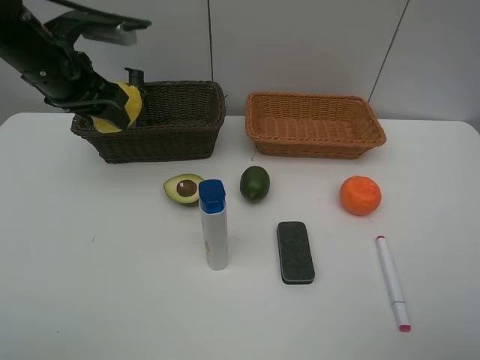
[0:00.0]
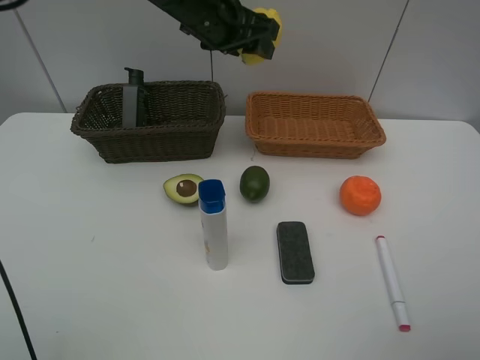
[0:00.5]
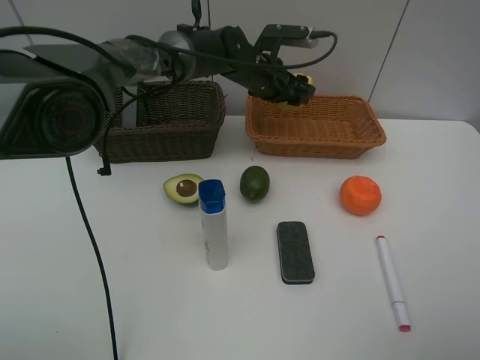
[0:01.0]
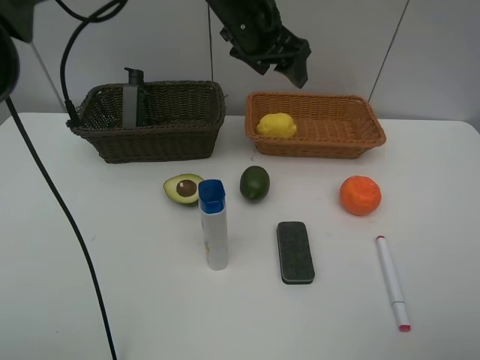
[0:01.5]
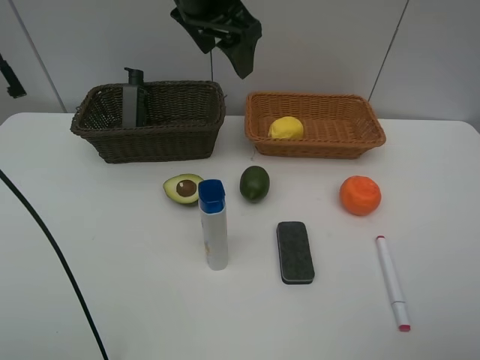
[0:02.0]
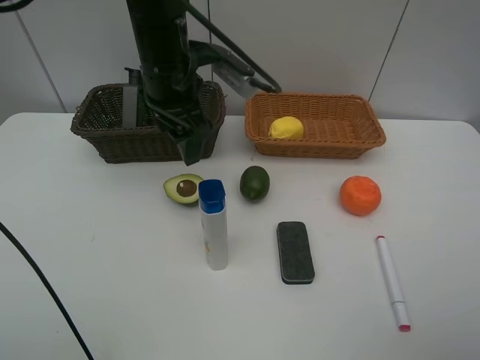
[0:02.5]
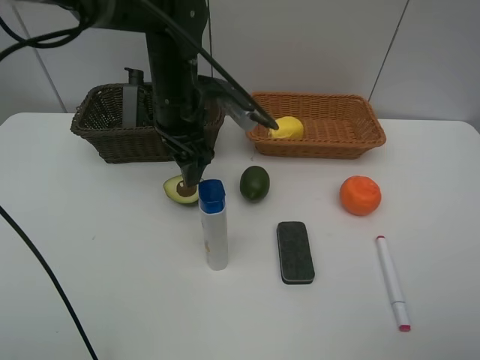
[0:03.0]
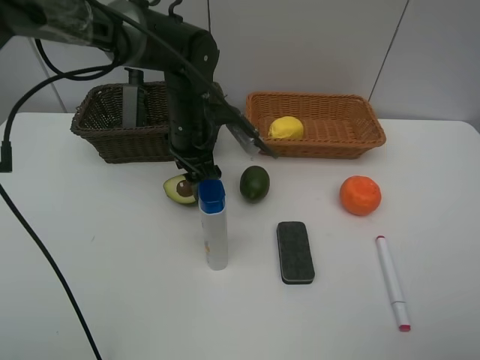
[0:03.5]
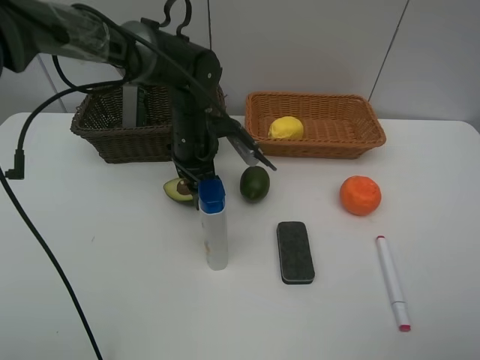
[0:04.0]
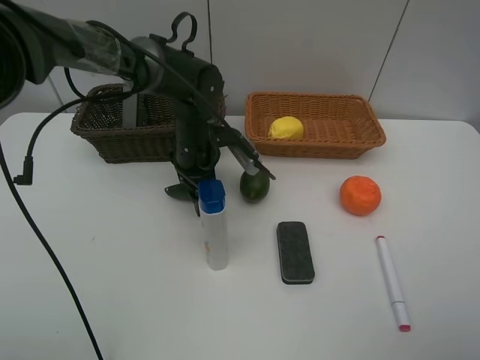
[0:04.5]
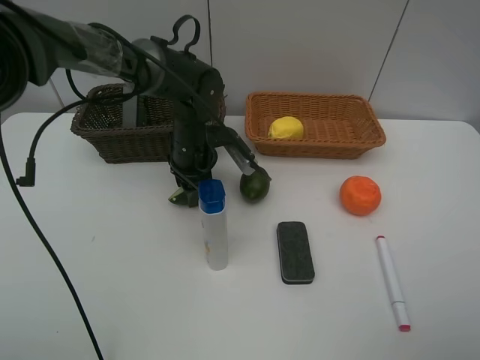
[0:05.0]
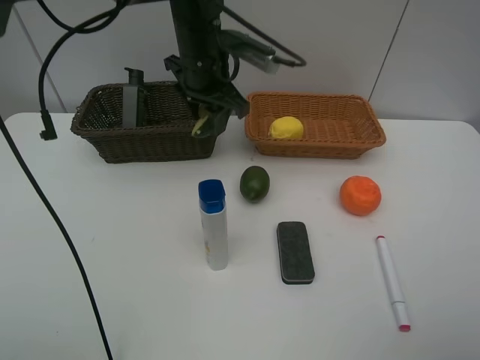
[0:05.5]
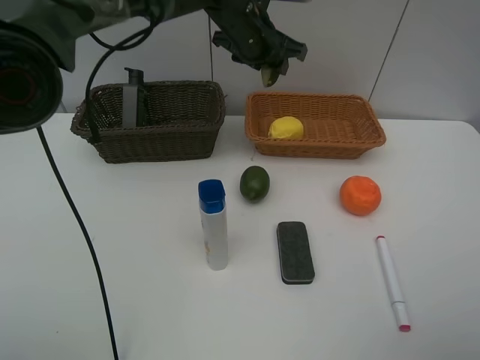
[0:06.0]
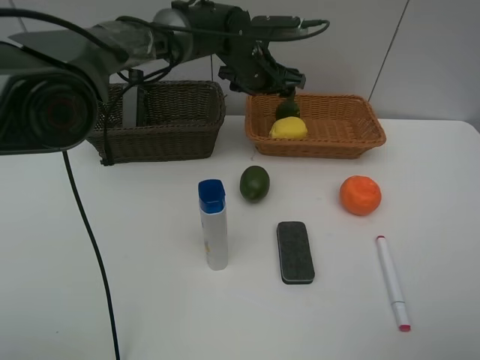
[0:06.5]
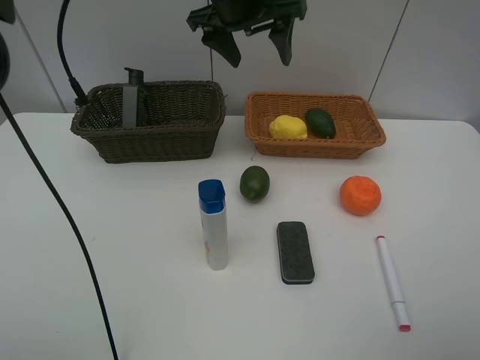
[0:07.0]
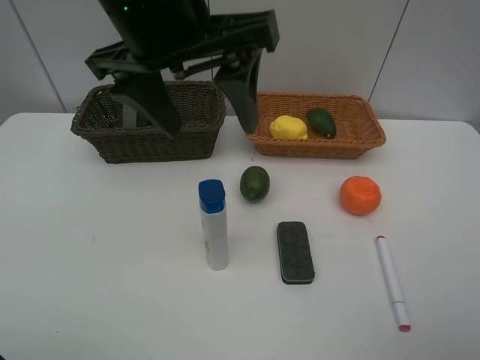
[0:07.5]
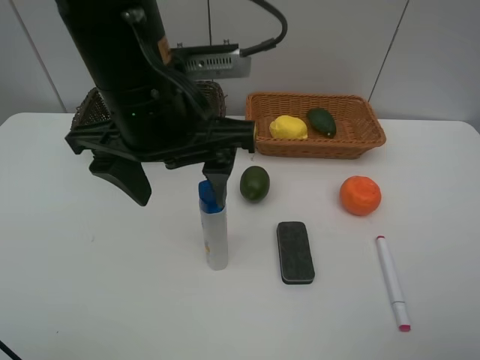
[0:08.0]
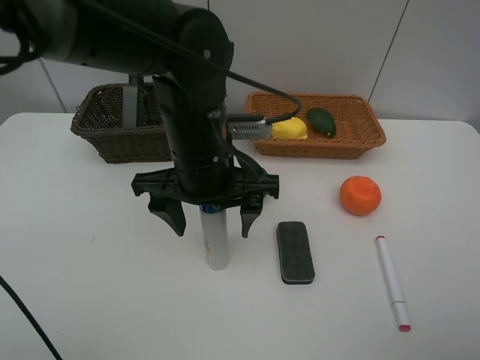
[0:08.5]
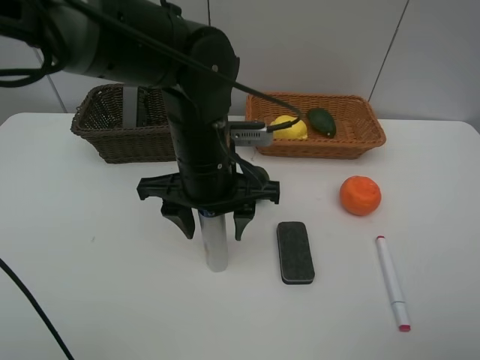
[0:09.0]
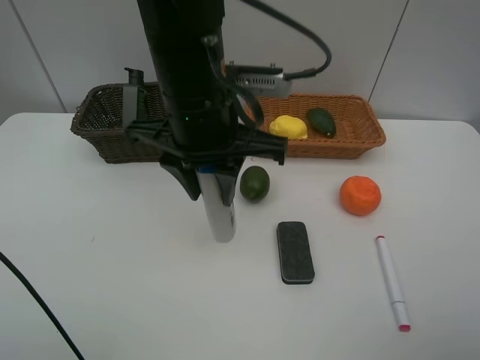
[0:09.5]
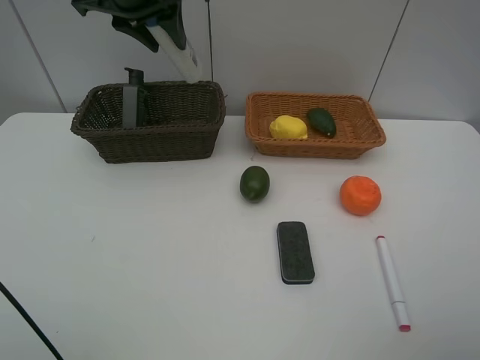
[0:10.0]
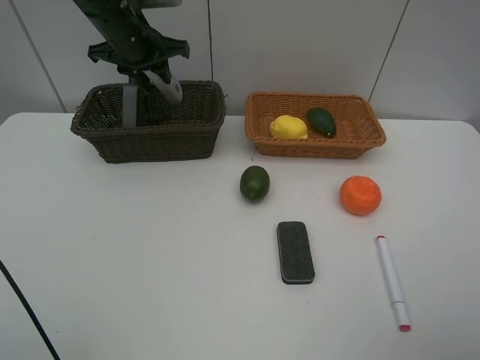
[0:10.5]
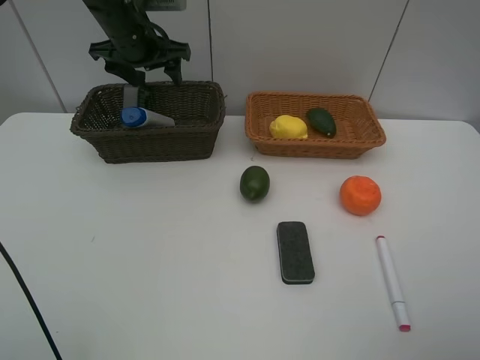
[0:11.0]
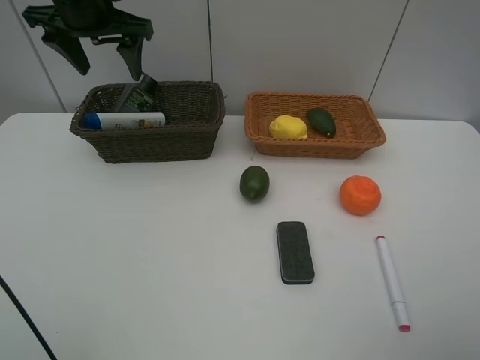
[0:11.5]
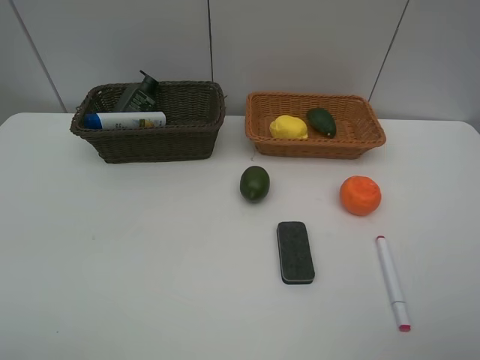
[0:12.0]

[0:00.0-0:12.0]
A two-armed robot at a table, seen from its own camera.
Task of the whole recording: Place multiple objects separately in different baskets.
Step, 0:00.0 to 0:01.0: Place the lemon in the light basket with left gripper.
Step, 0:01.5 to 0:05.0: Pick up the avocado with left gripper.
Step, 0:05.5 to 0:06.5: Place the avocado in the light basket with left gripper.
Step, 0:07.0 to 0:09.0: Pick up the shampoo with left gripper.
Step, 0:09.5 to 0:10.5: Place the shampoo in the dark basket with left gripper.
0:00.0 to 0:02.0: The left gripper heads to the right and upward, covering approximately 20 cm, and opens.
0:02.0 to 0:04.0: The left gripper shifts roughly 20 cm downward.
0:04.0 to 0:06.0: The left gripper goes some 15 cm upward, forward and to the right, and closes.
0:06.0 to 0:08.0: The left gripper goes roughly 25 cm backward, and opens.
0:08.0 to 0:10.0: The left gripper moves forward and to the left, roughly 20 cm, and closes up.
0:10.0 to 0:12.0: The left gripper heads to the left and backward, covering roughly 25 cm, and opens its fingers.

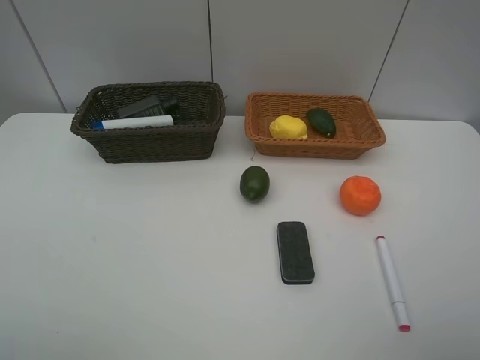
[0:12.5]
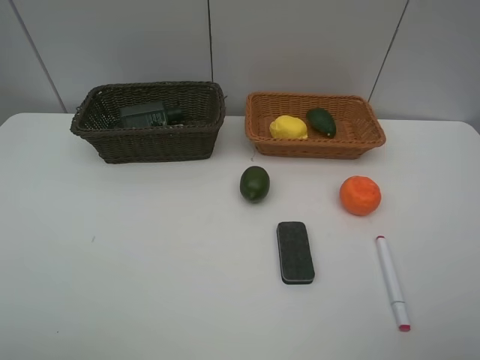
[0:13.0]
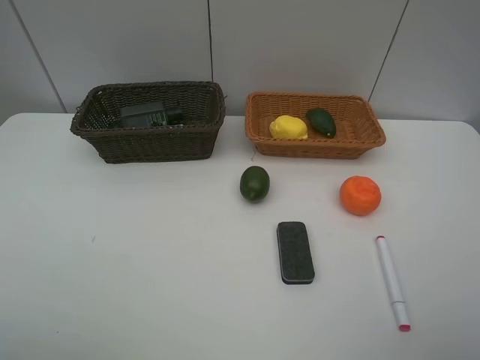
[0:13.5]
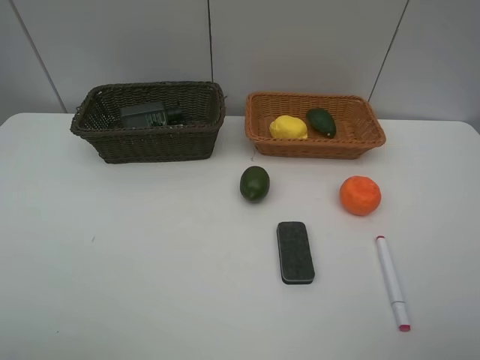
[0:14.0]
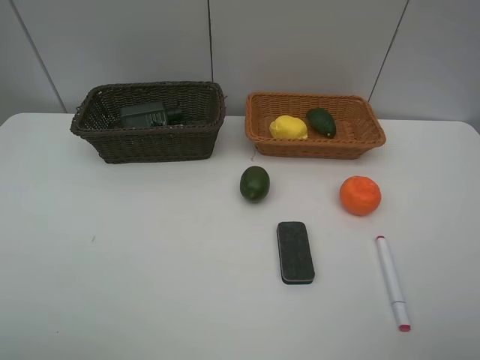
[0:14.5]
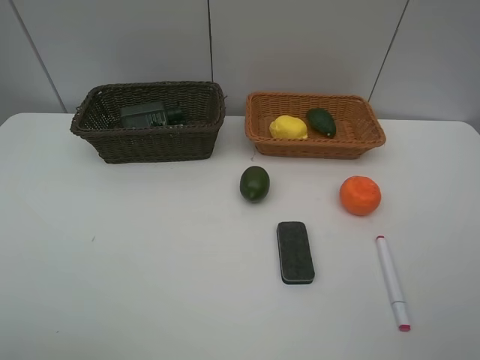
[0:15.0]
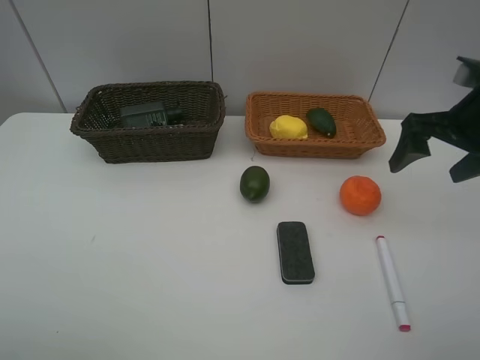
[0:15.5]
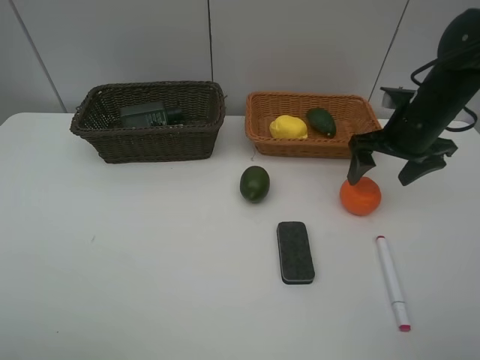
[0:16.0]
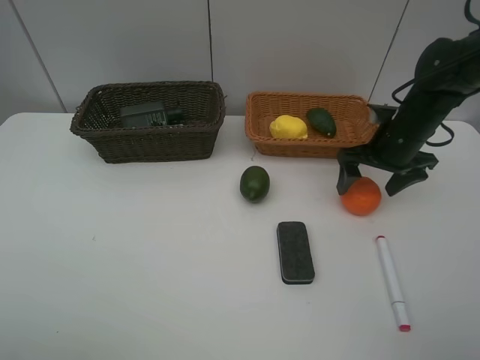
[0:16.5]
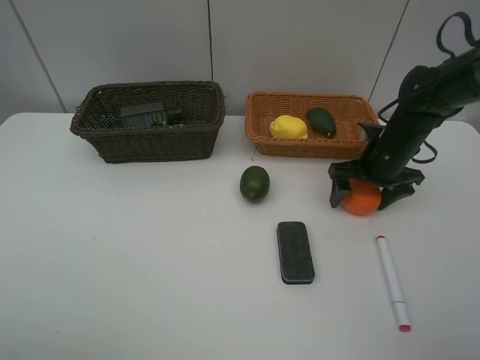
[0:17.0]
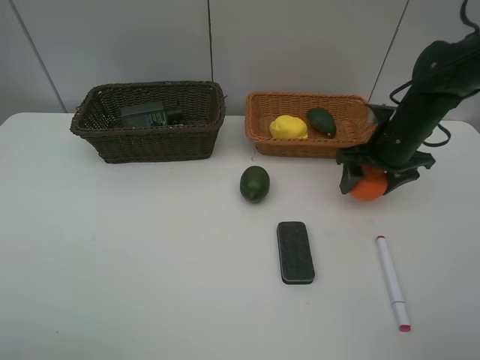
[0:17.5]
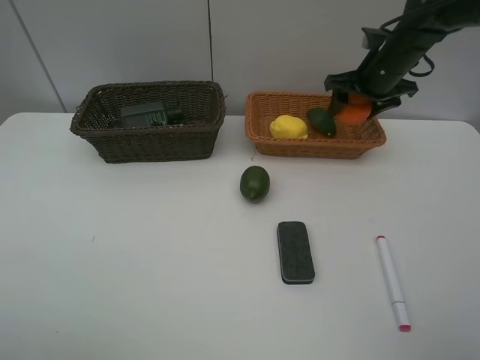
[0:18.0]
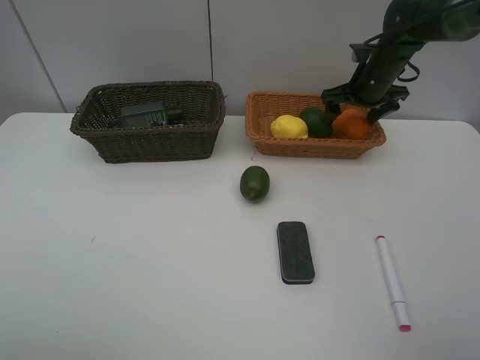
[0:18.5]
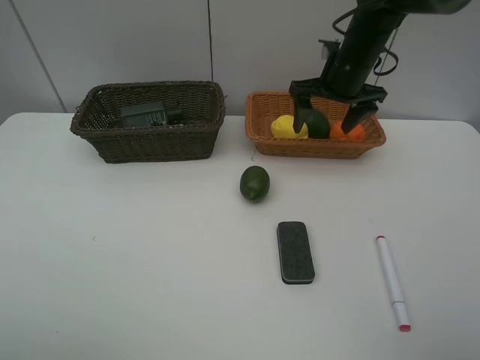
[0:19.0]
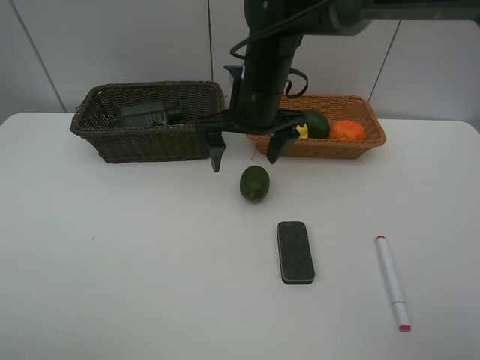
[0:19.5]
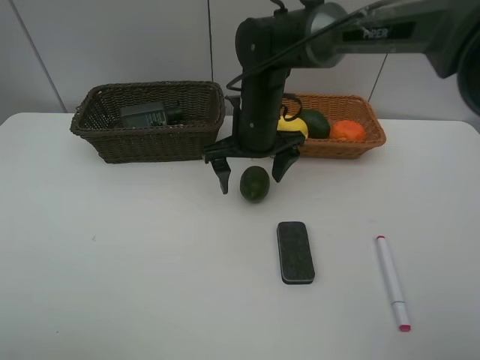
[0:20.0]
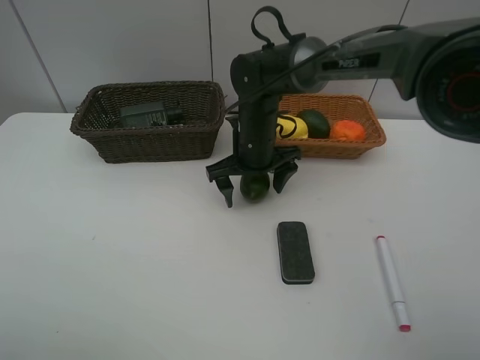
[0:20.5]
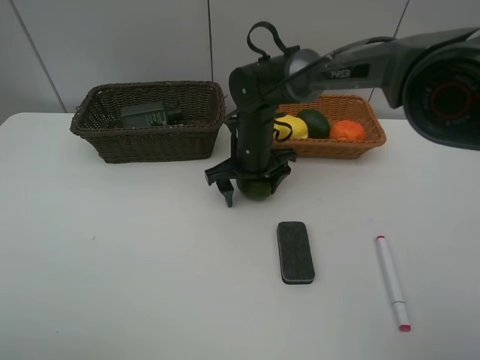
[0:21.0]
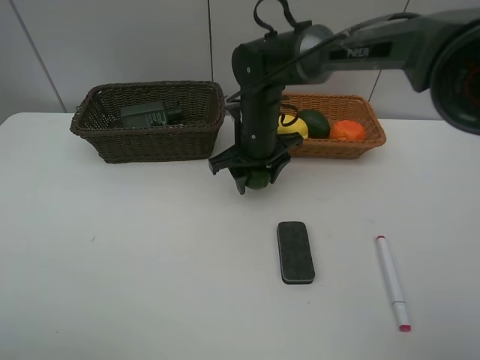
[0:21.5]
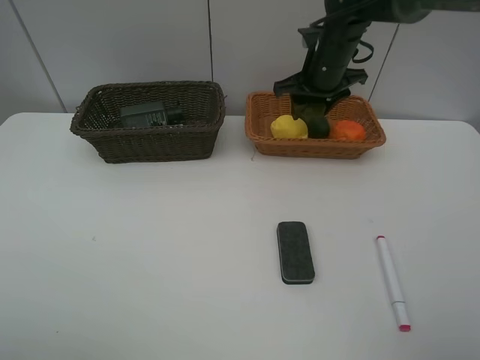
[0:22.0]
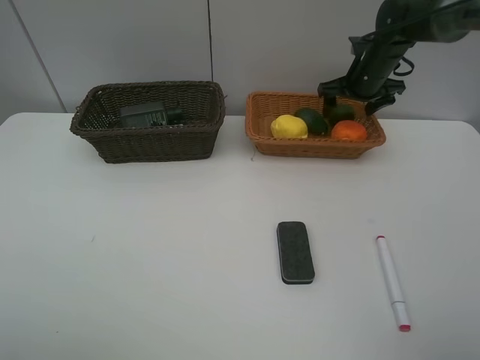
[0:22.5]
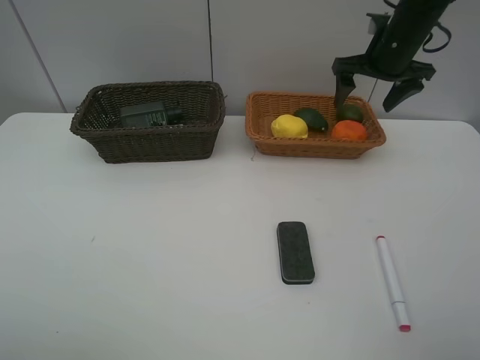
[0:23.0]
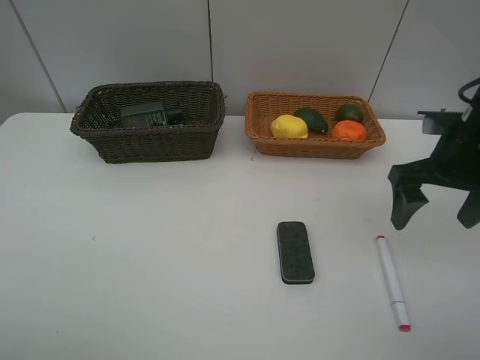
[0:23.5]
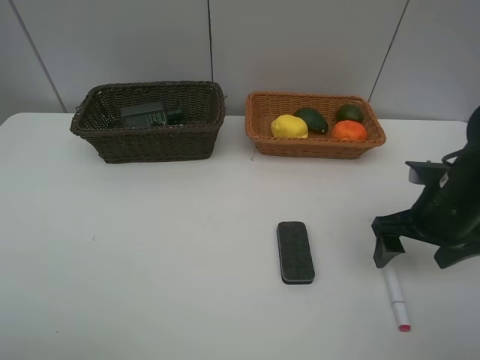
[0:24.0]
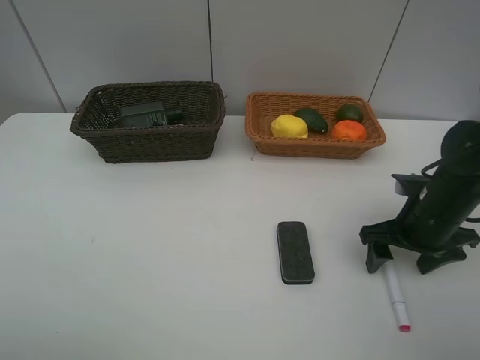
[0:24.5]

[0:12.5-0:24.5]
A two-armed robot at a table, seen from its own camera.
Task of the whole recording: Place multiple objects separately in different baskets.
Step, 0:12.5 to 0:17.5: Pick up the orange with right gripper.
Step, 0:18.0 to 0:18.5: Place the orange in the light basket with right gripper.
Step, 0:19.0 to 0:21.5: Pick up the lime with right gripper.
Step, 0:22.0 to 0:22.5: Place the lime in the light basket with right gripper.
0:14.5 to 0:16.5: The right gripper moves forward, some 35 cm.
0:16.5 to 0:18.5: The right gripper shifts some 15 cm forward.
0:18.5 to 0:20.5: The right gripper moves to the left and backward, some 25 cm.
0:20.5 to 0:22.5: The right gripper travels to the right and forward by some 25 cm, and closes, then opens again.
0:22.5 to 0:24.5: The right gripper goes approximately 25 cm backward.

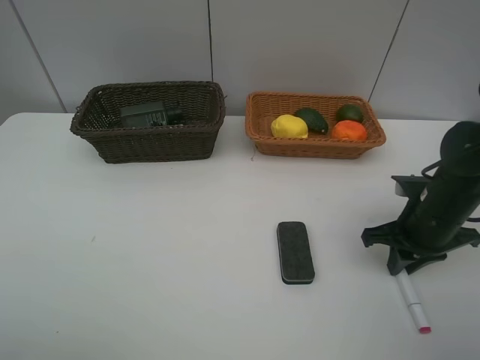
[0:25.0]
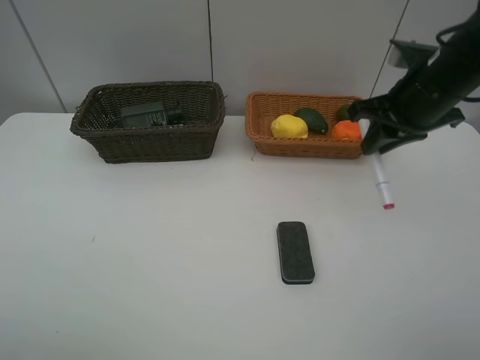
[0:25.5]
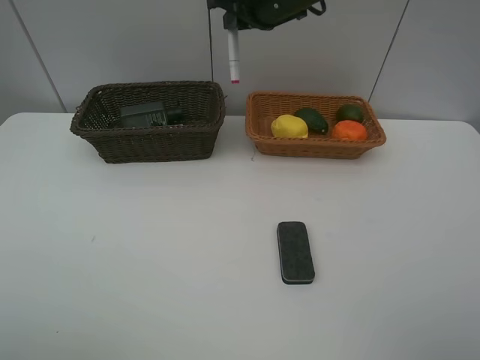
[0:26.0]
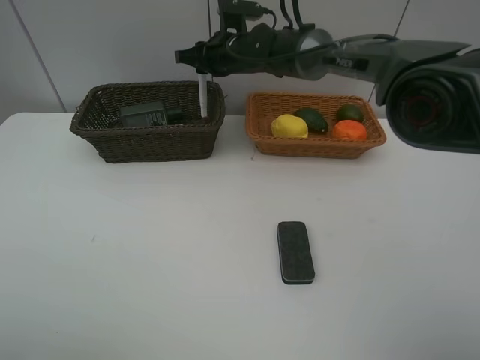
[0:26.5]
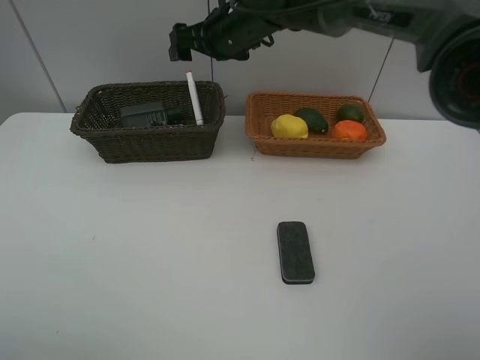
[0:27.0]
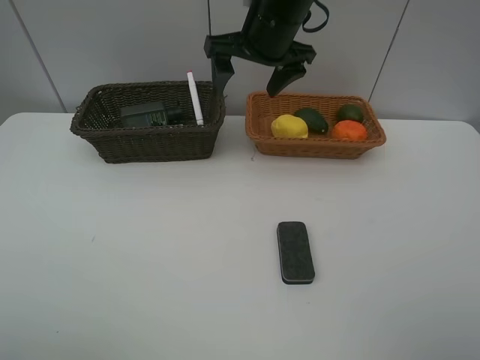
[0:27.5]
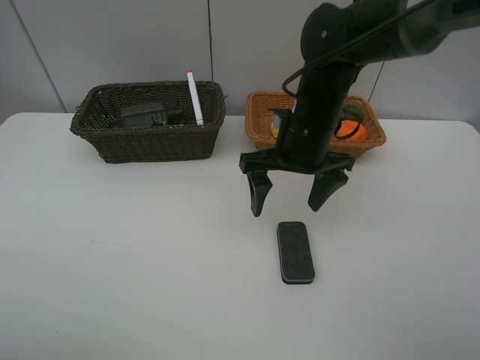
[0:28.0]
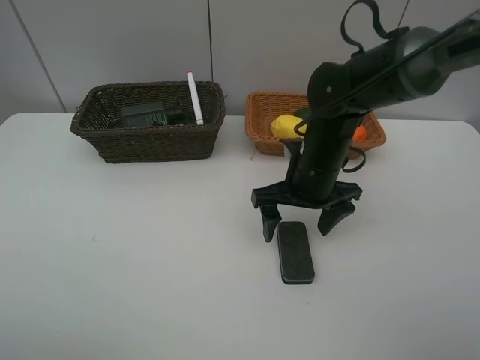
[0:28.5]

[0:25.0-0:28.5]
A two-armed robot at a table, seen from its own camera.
Task of the whole recording: Place multiple objects separately in different baskets.
Step, 0:25.5 to 0:26.5: Place the red marker in the dark basket with right gripper.
0:25.0 to 0:27.0: The right gripper goes some 35 cm to the left, forward and upward, and opens up.
0:27.0 to 0:28.5: The right gripper heads backward, to the right and downward, covering some 25 cm.
